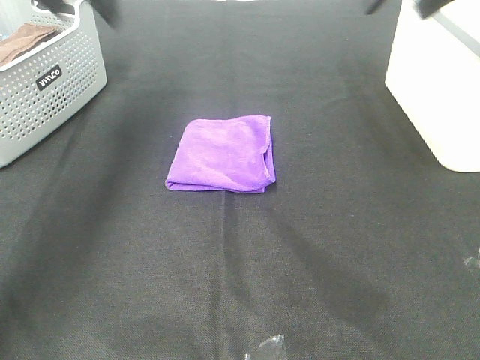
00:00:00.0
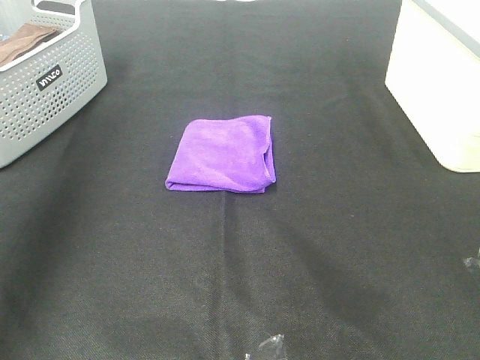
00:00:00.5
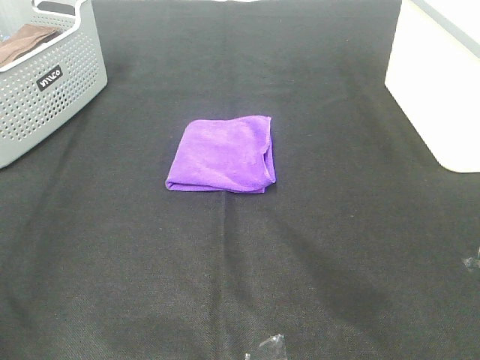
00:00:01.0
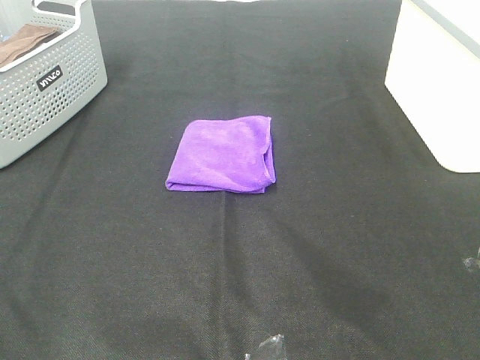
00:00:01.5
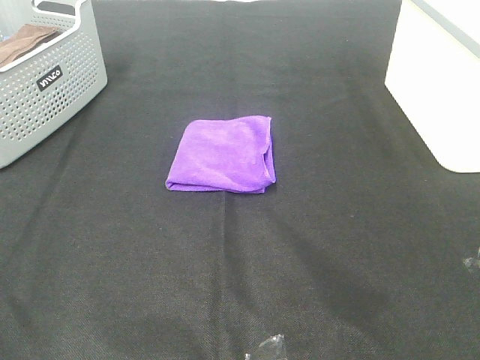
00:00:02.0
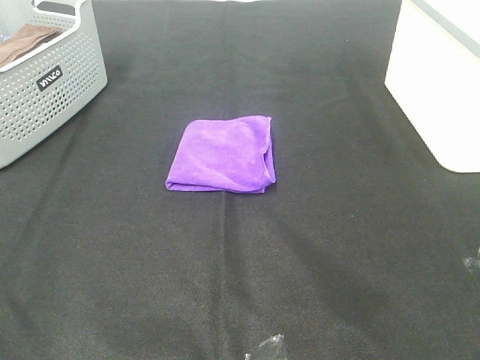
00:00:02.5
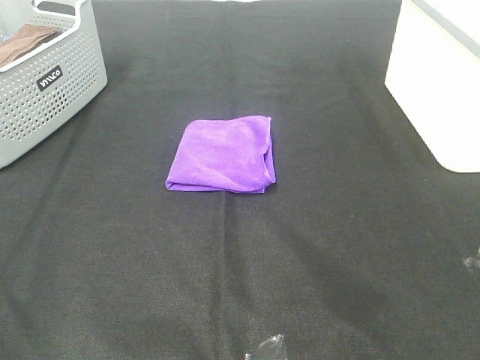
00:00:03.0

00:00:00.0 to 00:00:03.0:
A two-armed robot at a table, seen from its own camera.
Task of the whole recording: Fold towels.
00:00:00.0 to 00:00:01.5: The two grippers go about 40 cm backward.

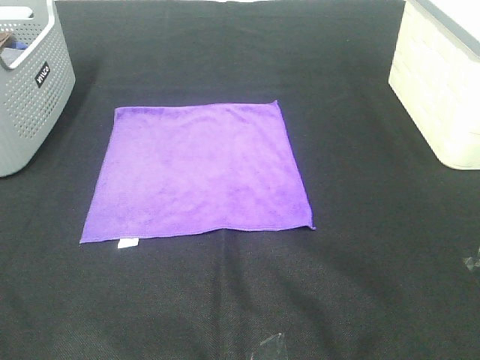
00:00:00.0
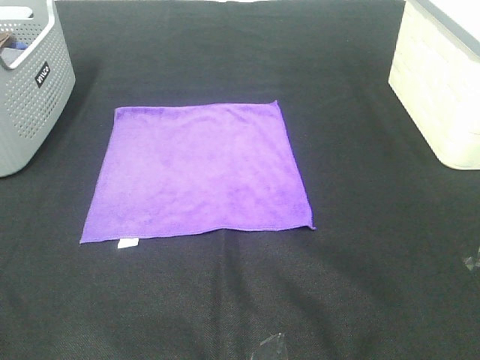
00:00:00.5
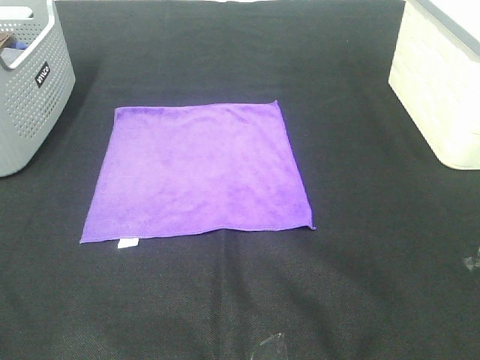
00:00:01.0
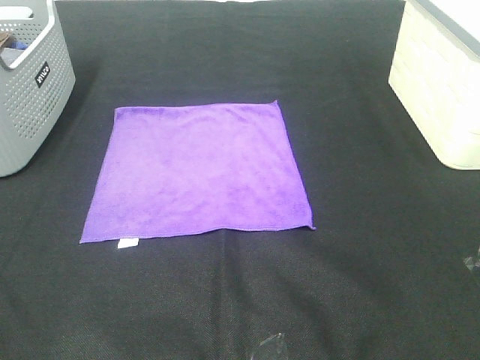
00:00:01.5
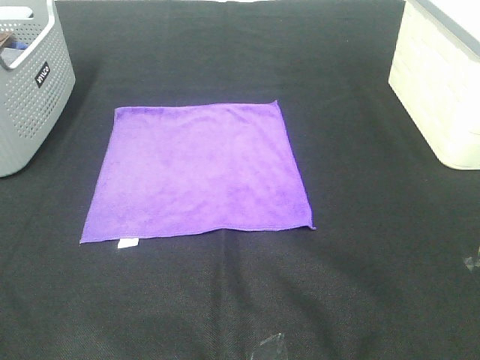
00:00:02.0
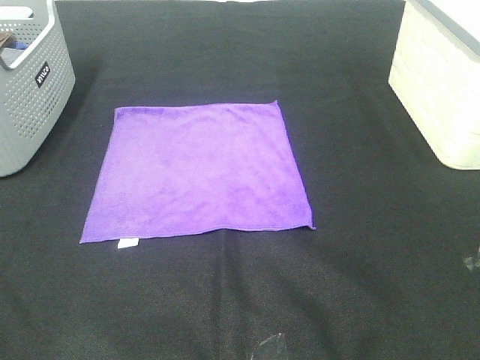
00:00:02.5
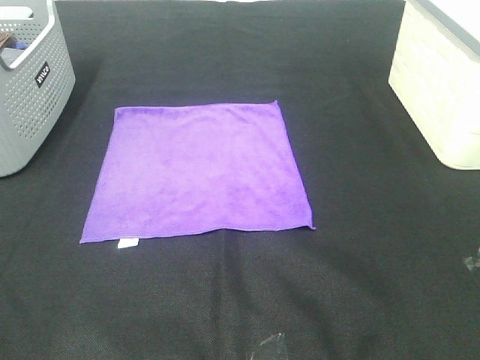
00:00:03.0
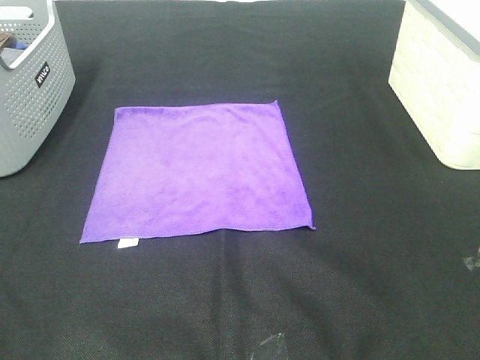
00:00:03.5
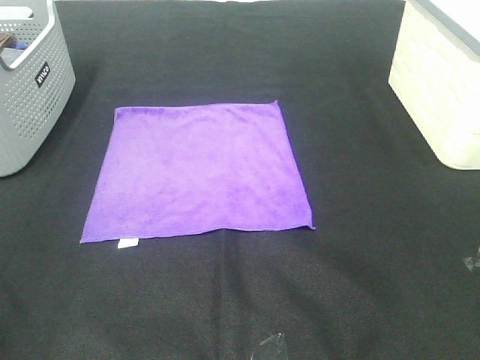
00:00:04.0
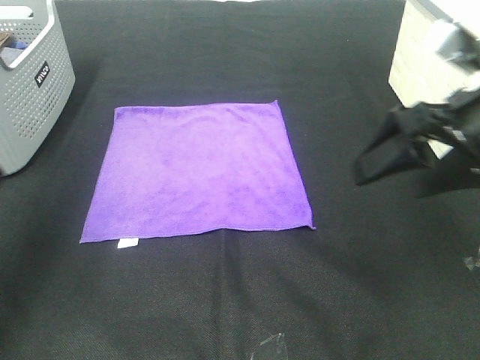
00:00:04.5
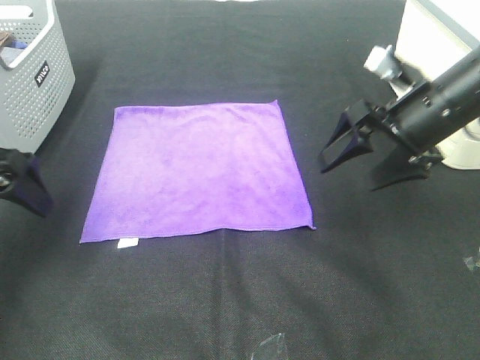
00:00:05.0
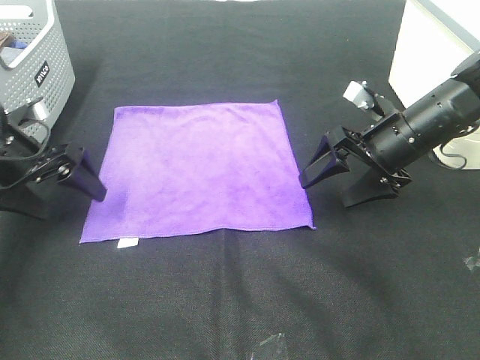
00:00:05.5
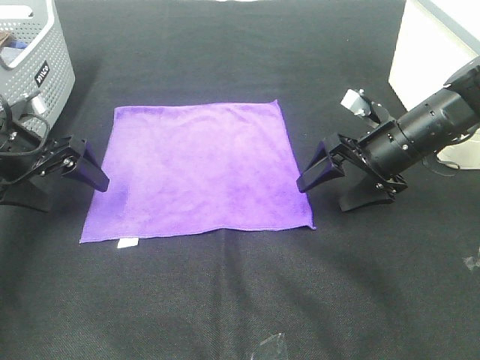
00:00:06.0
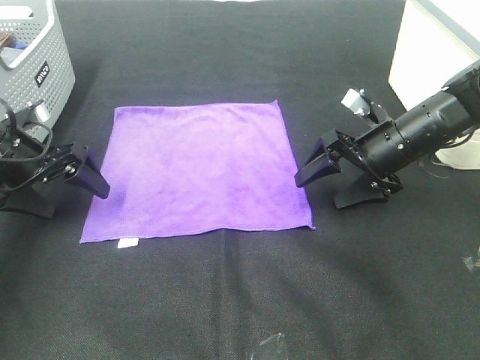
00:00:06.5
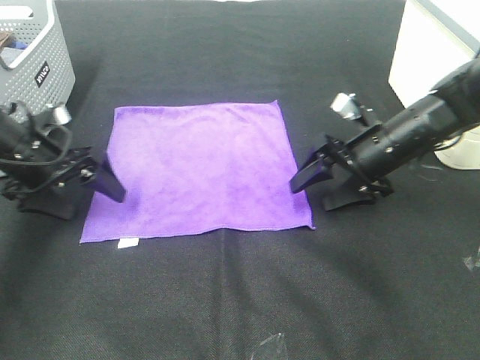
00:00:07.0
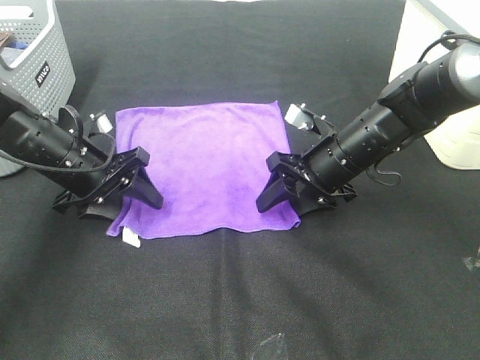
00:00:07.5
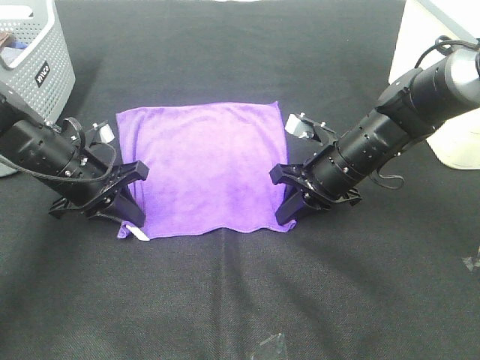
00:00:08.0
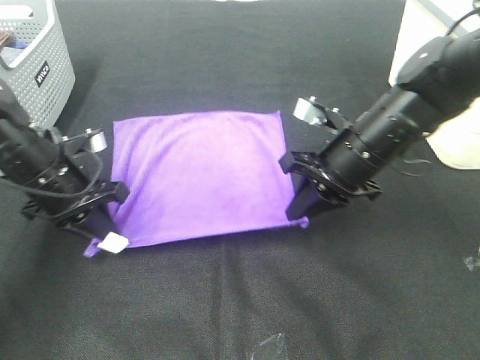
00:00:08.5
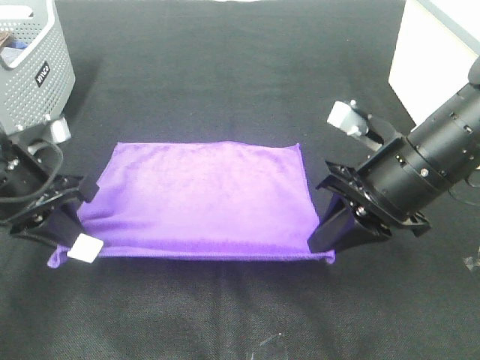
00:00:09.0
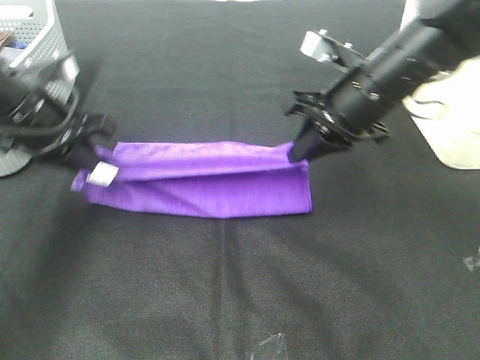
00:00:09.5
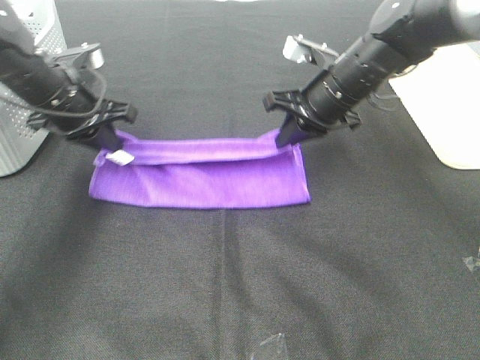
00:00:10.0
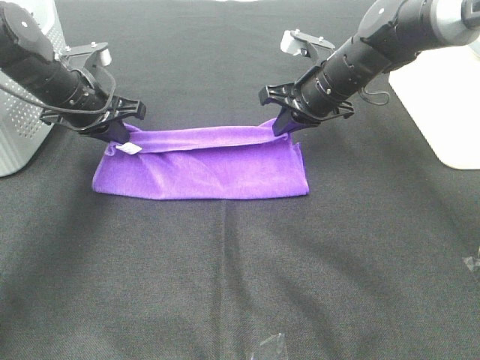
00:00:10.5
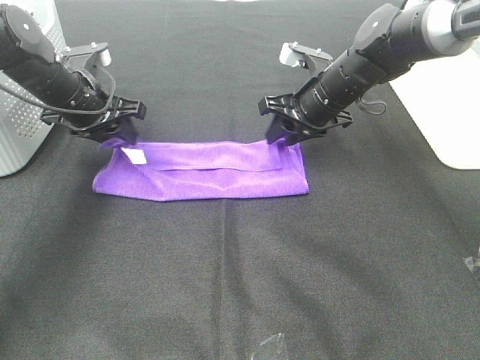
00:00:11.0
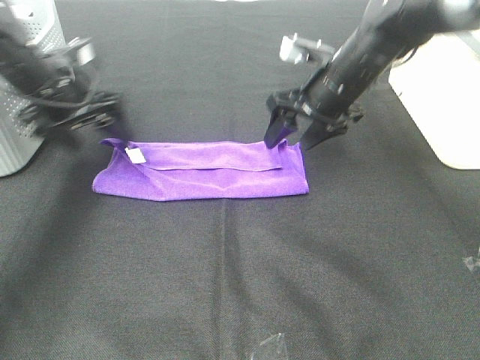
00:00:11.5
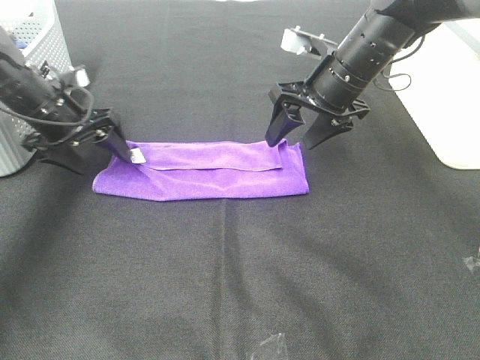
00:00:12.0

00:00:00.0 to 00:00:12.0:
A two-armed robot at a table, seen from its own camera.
Task of the whole recording: Fold towels.
Step, 00:00:00.0 to 00:00:08.0: Left hand: grab the bottom left corner of purple towel.
Step, 00:00:00.0 to 00:00:08.0: Right hand: grab the bottom right corner of purple towel.
Step, 00:00:08.5 to 00:00:10.5: Left hand: fold the purple towel up.
Step, 00:00:08.5 to 00:00:10.5: Right hand: fold the purple towel up.
00:00:00.0 to 00:00:02.0: Both grippers stay put.
00:00:04.0 to 00:00:06.0: Both grippers move forward and downward, some 35 cm.
00:00:06.0 to 00:00:08.0: The right gripper is displaced to the left by roughly 5 cm, and closes. Meanwhile the left gripper moves to the right, roughly 5 cm, and closes.
00:00:08.0 to 00:00:10.0: The two grippers go approximately 10 cm upward and forward.
00:00:10.0 to 00:00:12.0: The right gripper opens up, while the left gripper ends up about 5 cm from where it was, and opens up.

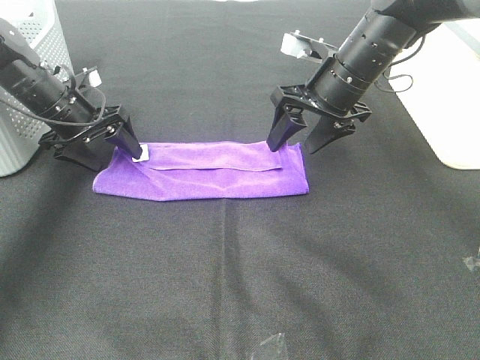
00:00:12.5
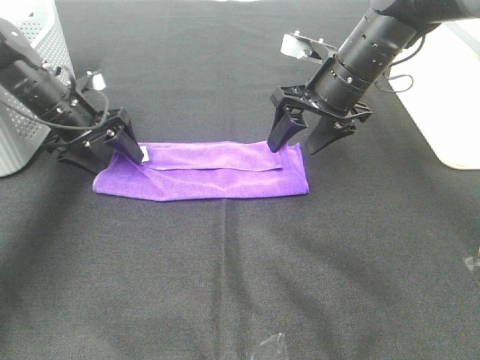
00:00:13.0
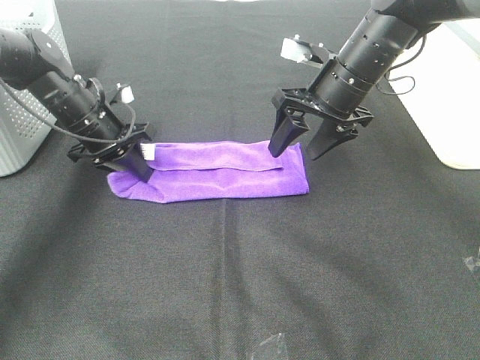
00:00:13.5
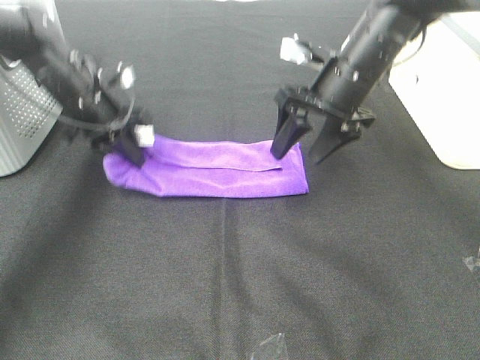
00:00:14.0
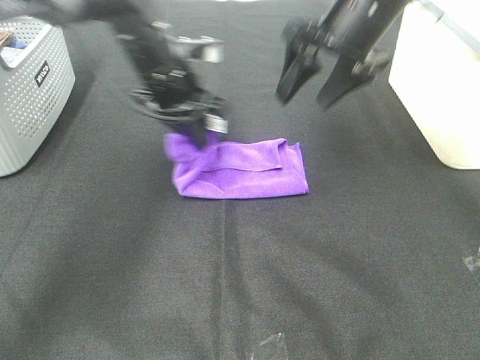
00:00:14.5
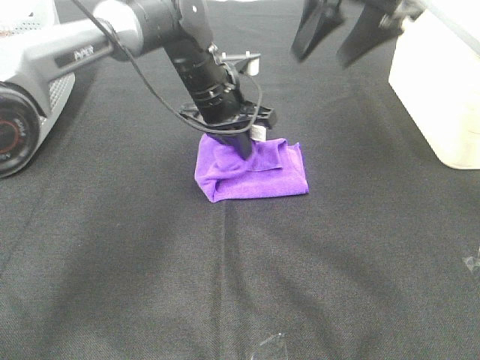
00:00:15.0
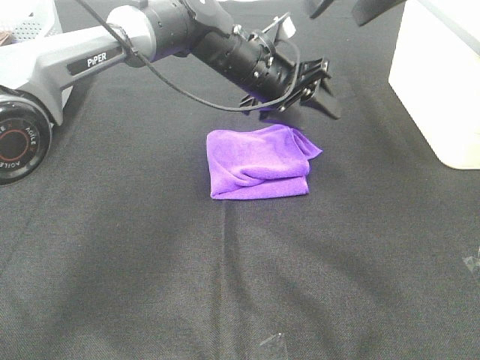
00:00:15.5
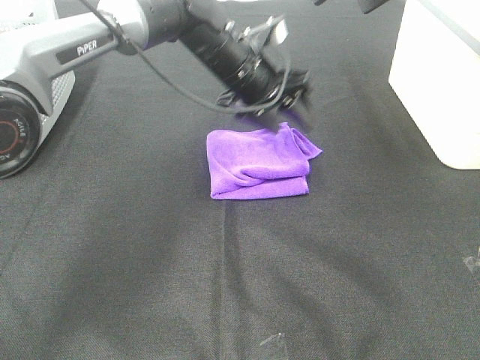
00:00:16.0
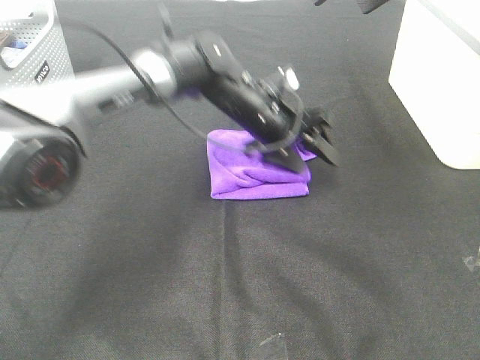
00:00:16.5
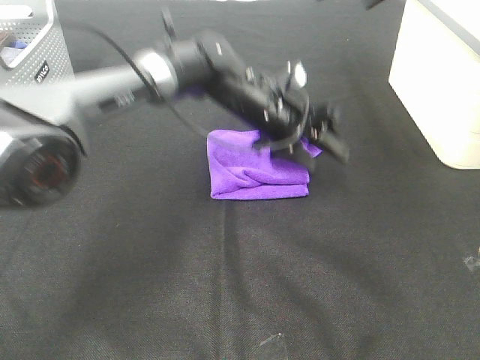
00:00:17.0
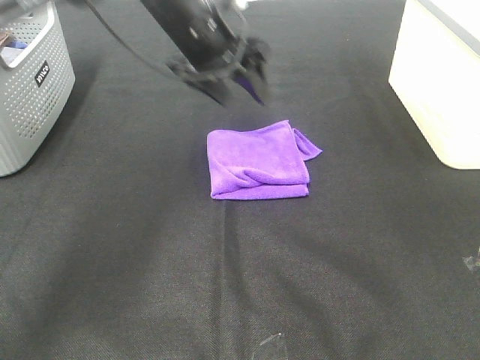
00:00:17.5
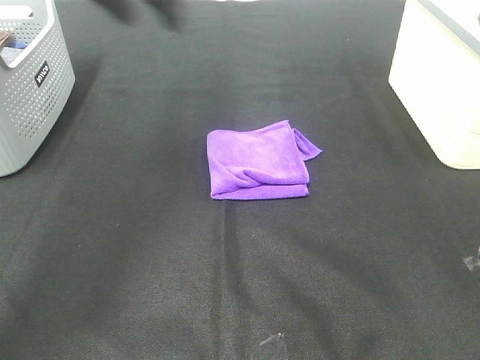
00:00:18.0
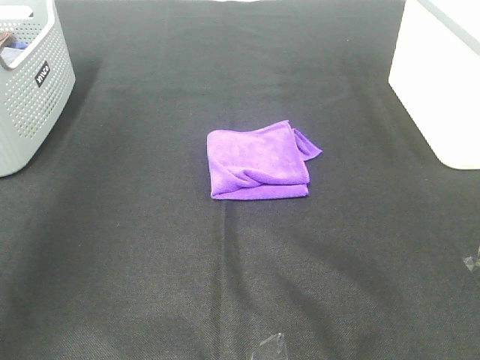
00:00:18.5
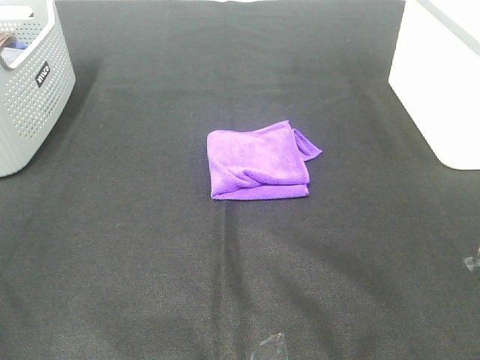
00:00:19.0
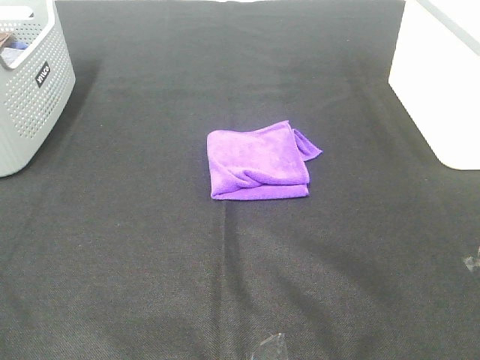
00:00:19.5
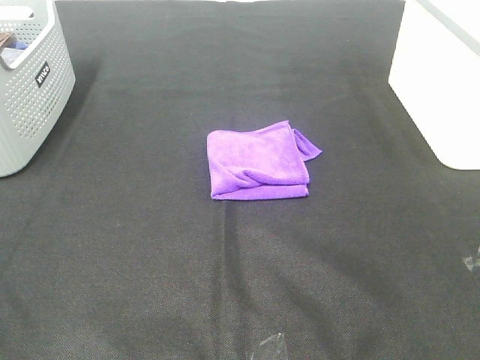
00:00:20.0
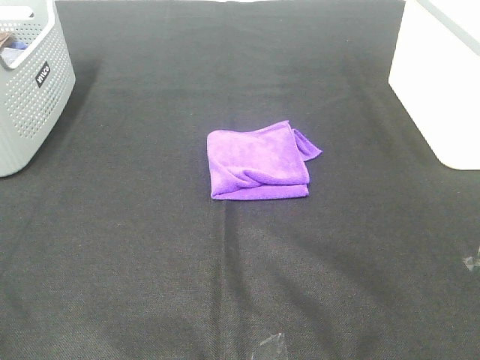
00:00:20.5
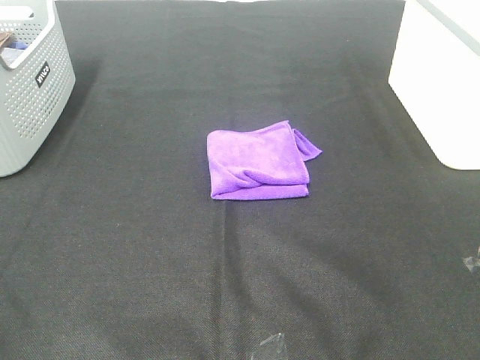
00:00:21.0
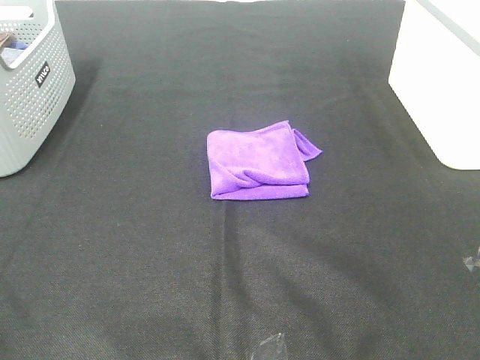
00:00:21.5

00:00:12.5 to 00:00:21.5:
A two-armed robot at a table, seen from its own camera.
Task of the whole recording: Fold towels.
Step, 00:00:12.5 to 00:00:15.0: Left hand: fold the purple towel from left to right.
00:00:12.5 to 00:00:14.5: The right gripper is displaced upward by about 10 cm; the left gripper is displaced to the right by roughly 20 cm, and closes up.
00:00:14.5 to 00:00:17.0: The left gripper moves to the right, approximately 10 cm, and opens up. The right gripper goes roughly 15 cm upward and backward.
00:00:17.0 to 00:00:19.5: The left gripper is displaced backward and to the left by some 60 cm. Meanwhile the right gripper goes about 35 cm backward.
